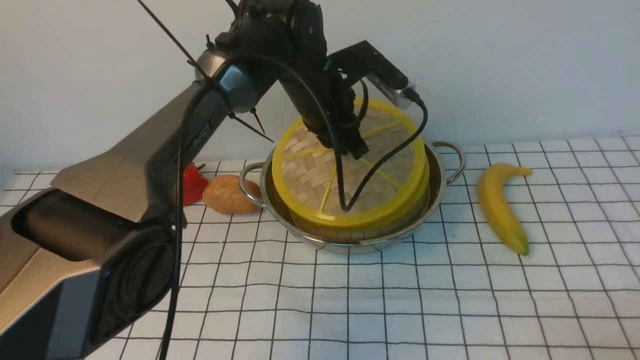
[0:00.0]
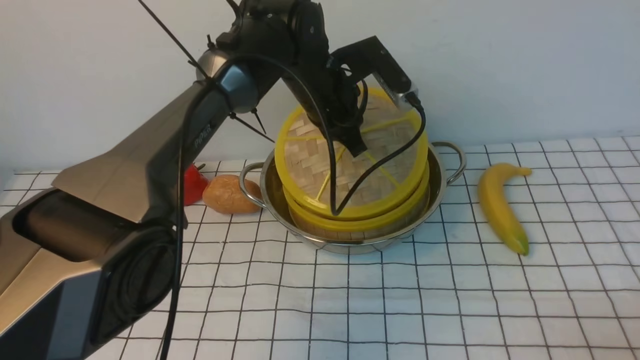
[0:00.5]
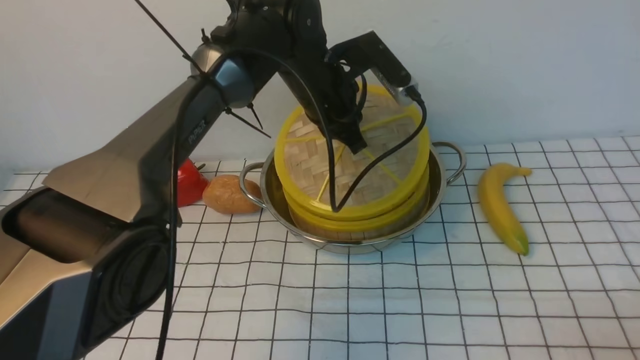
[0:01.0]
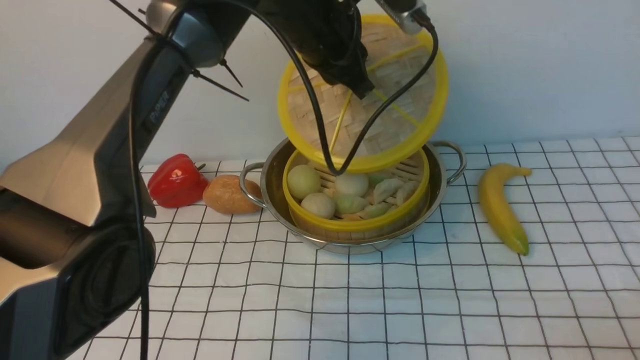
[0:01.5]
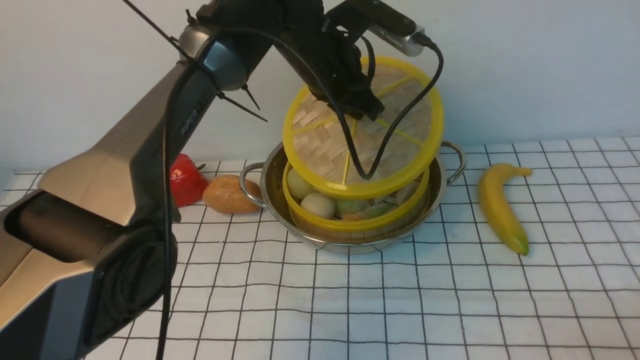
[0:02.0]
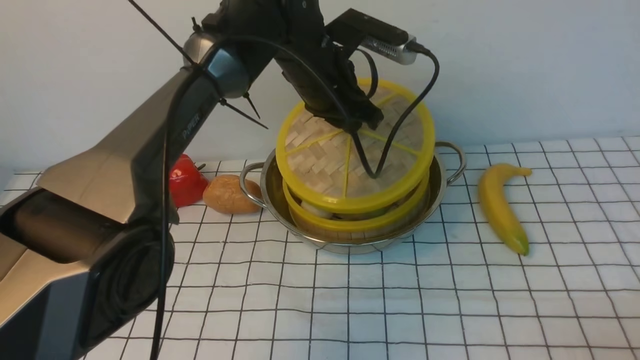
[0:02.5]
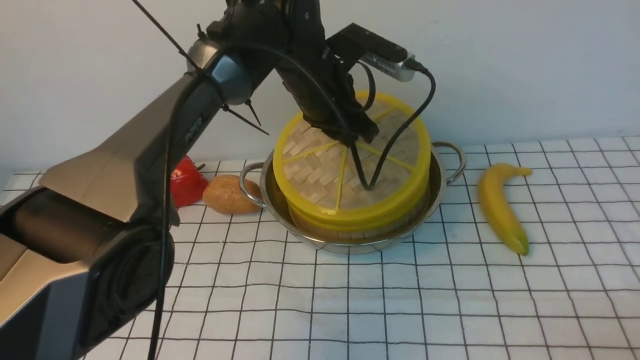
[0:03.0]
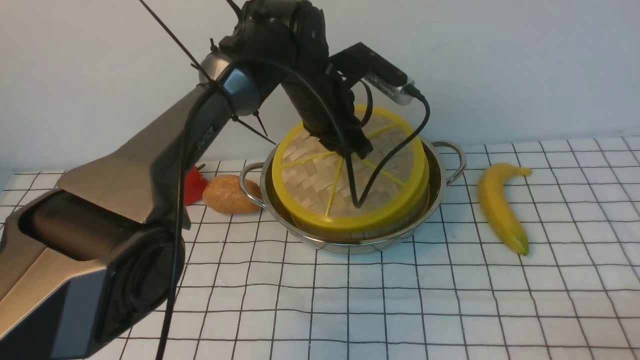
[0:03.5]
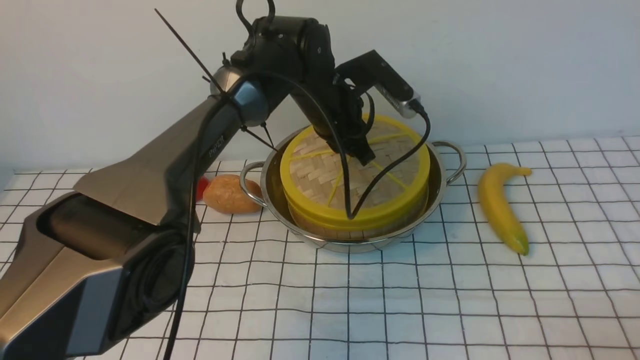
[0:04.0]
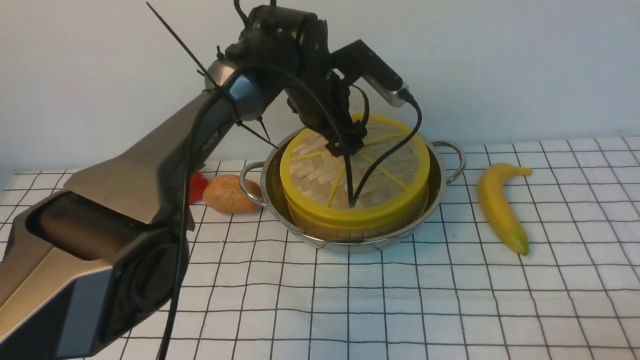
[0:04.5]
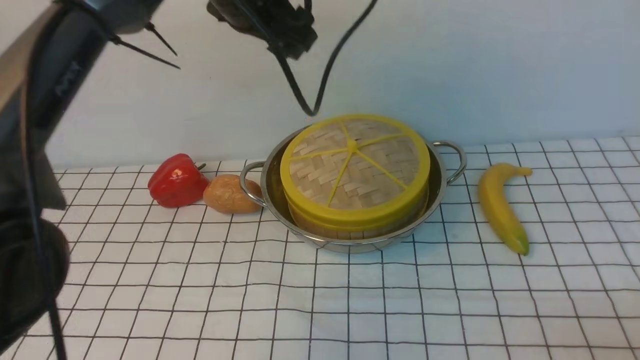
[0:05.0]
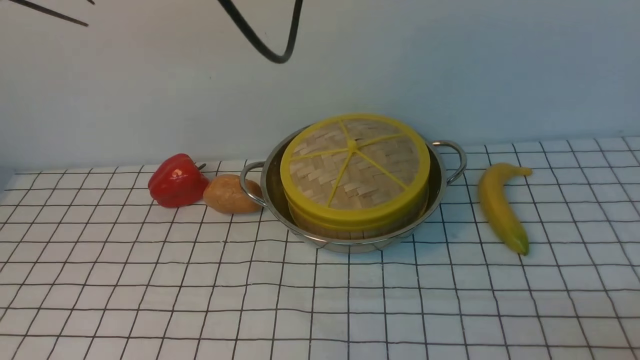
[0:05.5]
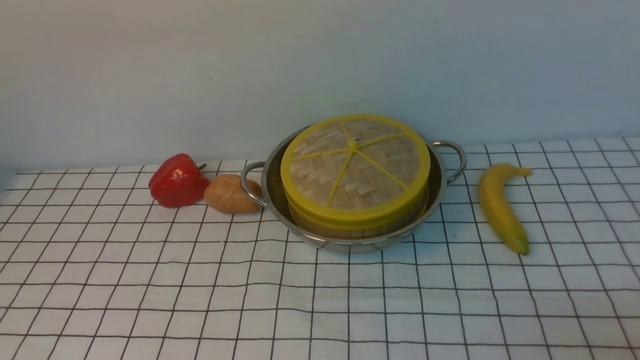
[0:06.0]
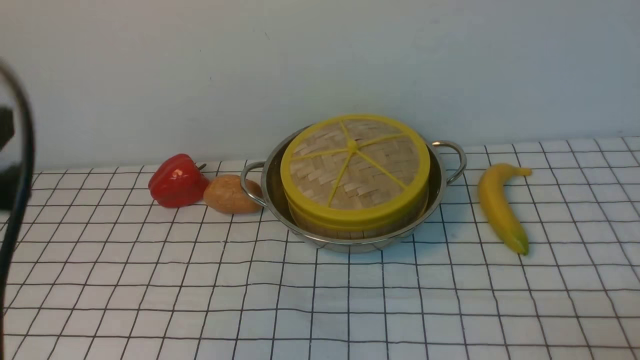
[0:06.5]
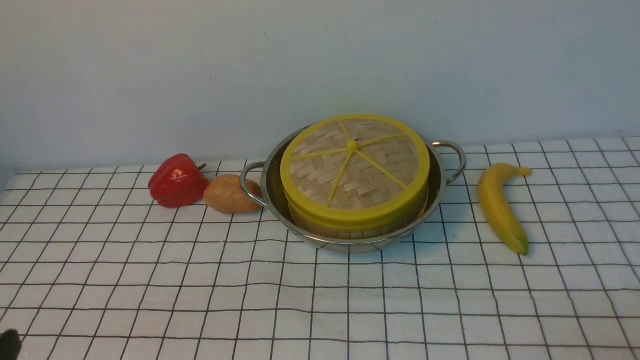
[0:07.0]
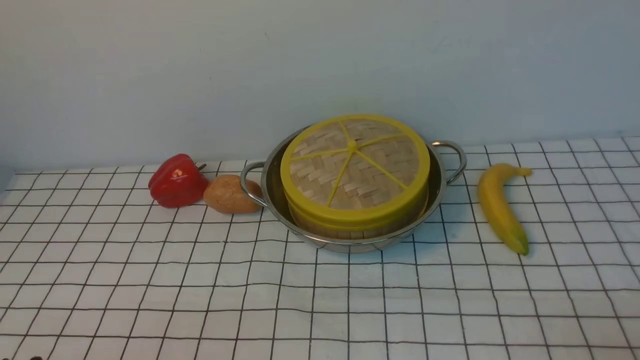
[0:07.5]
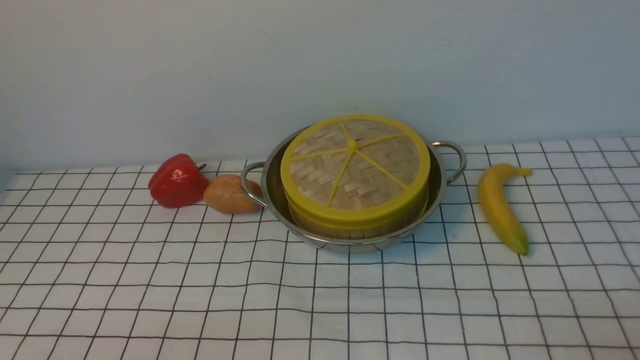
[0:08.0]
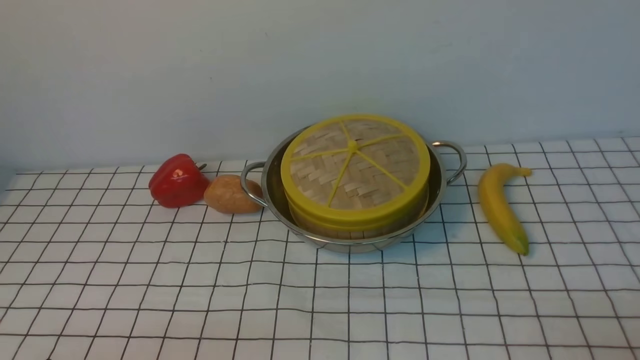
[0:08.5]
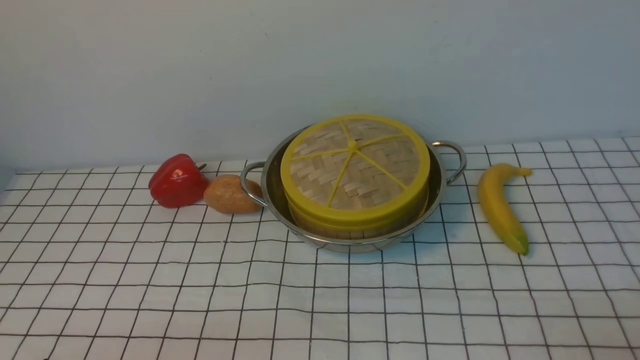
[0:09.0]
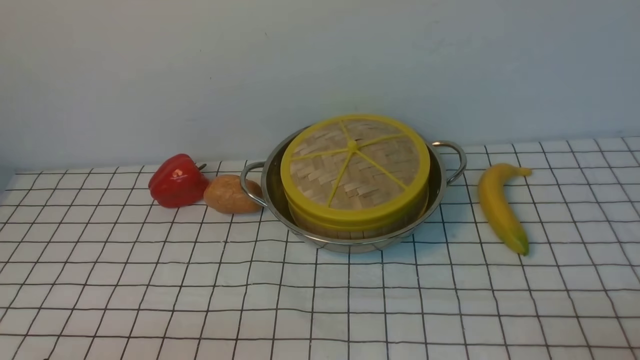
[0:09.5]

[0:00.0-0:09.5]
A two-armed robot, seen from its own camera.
Task of the whole recording: place the steamer in the pot on the white tablecloth, and put the lid on the steamer.
Step, 0:00.0 to 0:04.5: use the left arm to place the steamer lid on the steamer.
0:02.0 to 0:04.0: The left gripper shifts approximately 5 cm downward.
0:04.0 to 0:05.5: The left gripper goes about 25 cm upward and to the left, and opens, then closes once more.
0:05.5 to 0:07.5: The left gripper moves backward, downward and to the left, approximately 50 cm.
